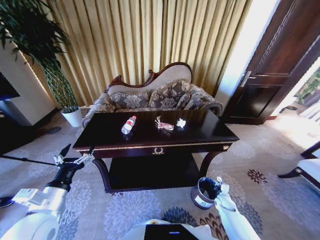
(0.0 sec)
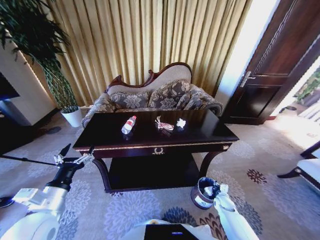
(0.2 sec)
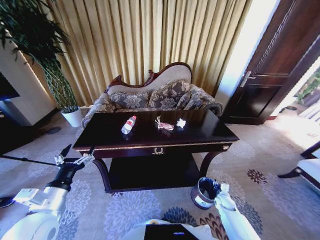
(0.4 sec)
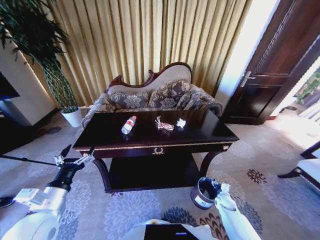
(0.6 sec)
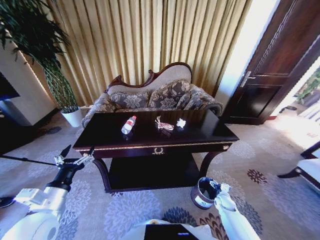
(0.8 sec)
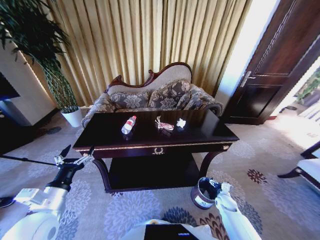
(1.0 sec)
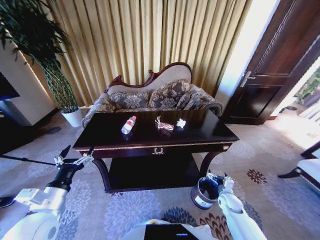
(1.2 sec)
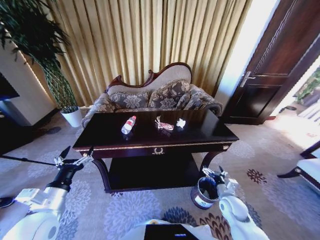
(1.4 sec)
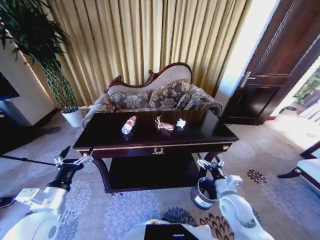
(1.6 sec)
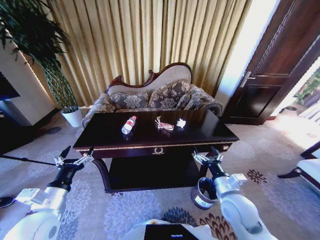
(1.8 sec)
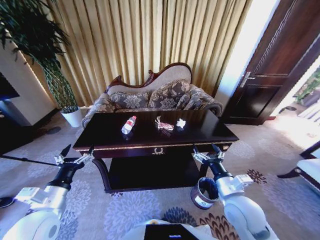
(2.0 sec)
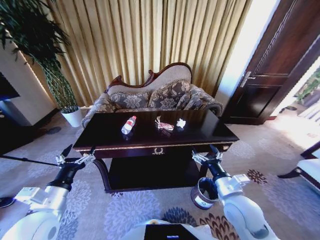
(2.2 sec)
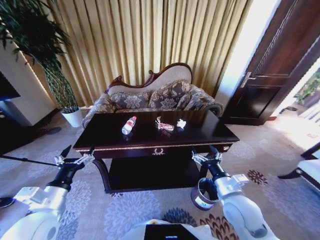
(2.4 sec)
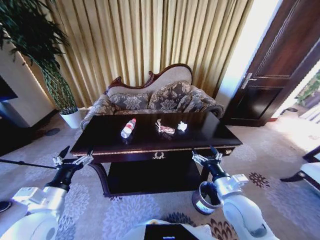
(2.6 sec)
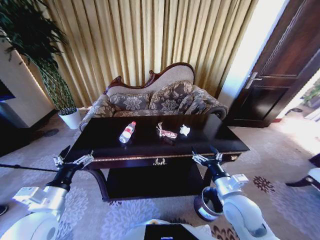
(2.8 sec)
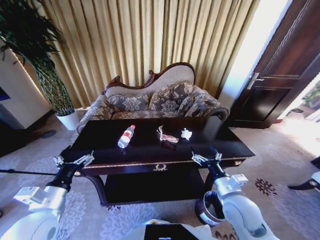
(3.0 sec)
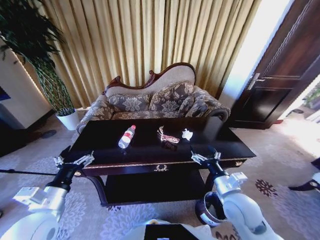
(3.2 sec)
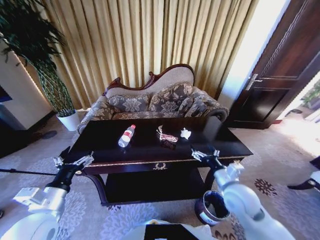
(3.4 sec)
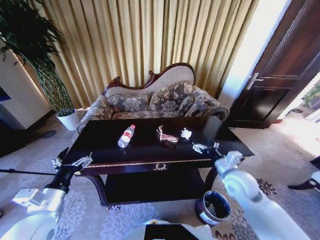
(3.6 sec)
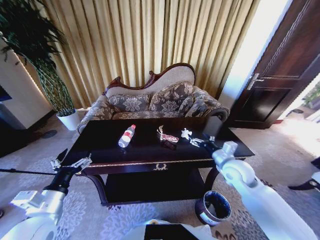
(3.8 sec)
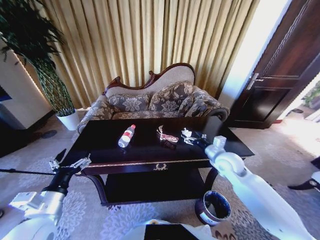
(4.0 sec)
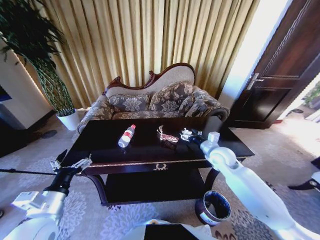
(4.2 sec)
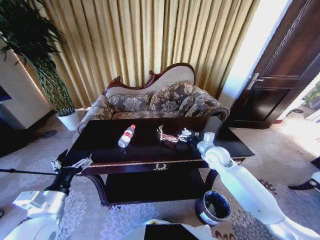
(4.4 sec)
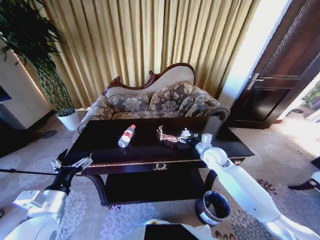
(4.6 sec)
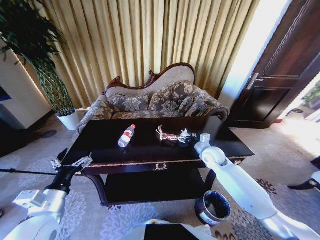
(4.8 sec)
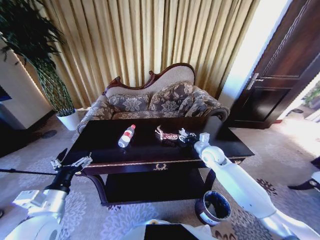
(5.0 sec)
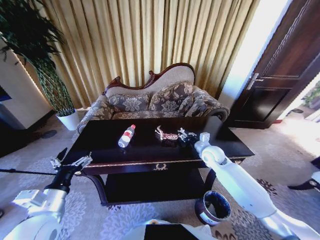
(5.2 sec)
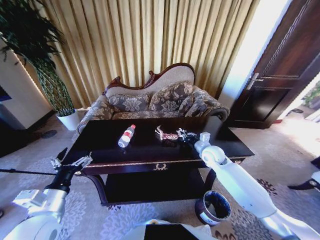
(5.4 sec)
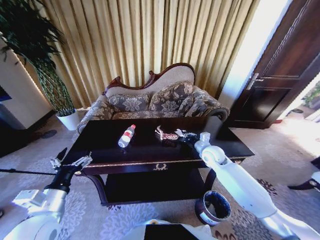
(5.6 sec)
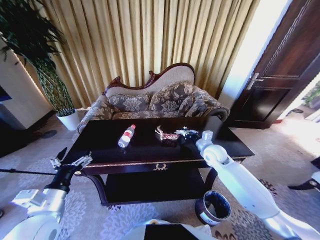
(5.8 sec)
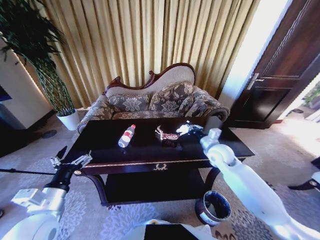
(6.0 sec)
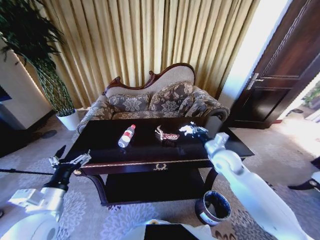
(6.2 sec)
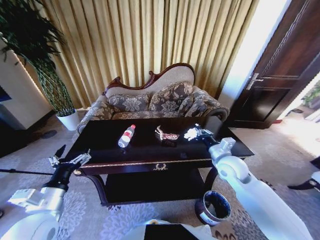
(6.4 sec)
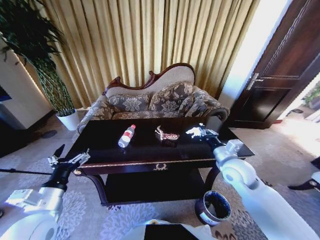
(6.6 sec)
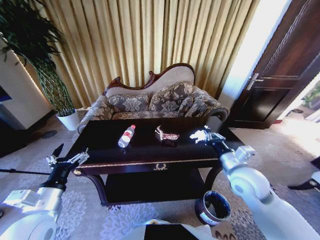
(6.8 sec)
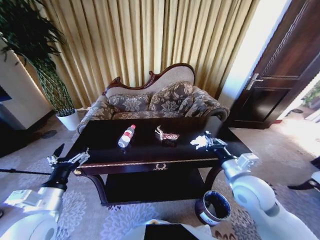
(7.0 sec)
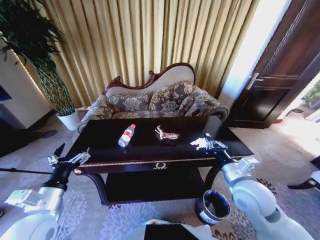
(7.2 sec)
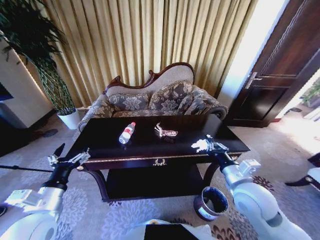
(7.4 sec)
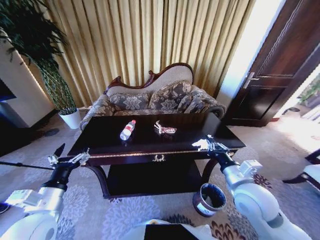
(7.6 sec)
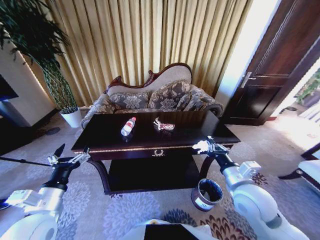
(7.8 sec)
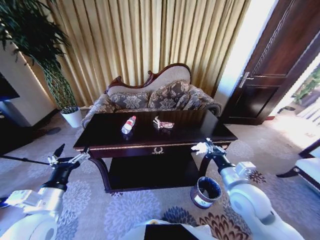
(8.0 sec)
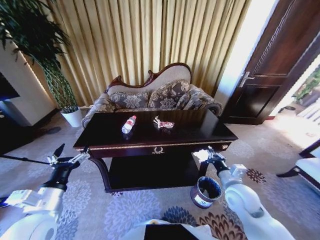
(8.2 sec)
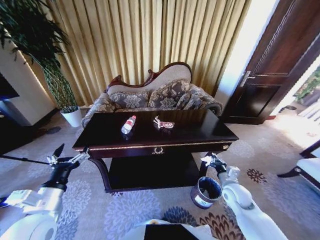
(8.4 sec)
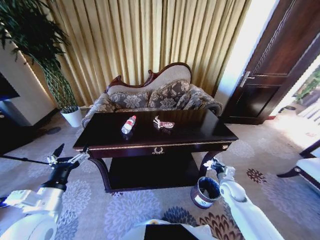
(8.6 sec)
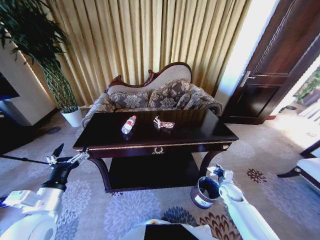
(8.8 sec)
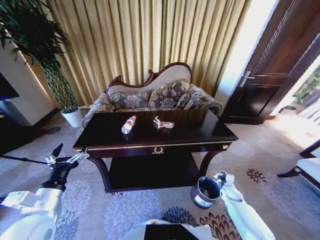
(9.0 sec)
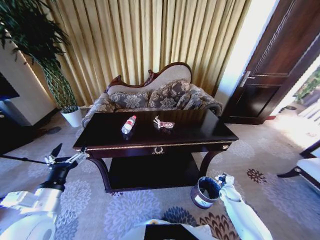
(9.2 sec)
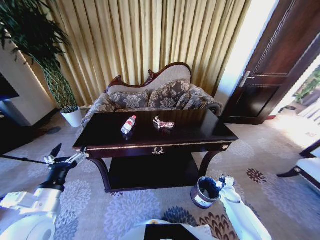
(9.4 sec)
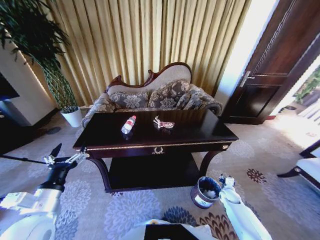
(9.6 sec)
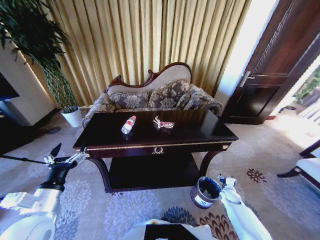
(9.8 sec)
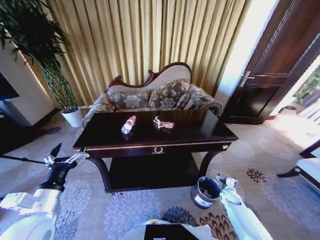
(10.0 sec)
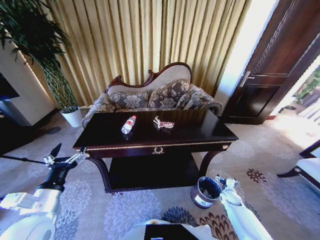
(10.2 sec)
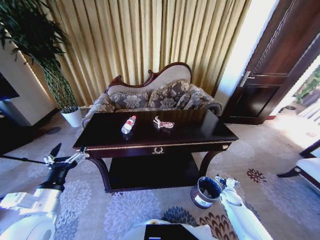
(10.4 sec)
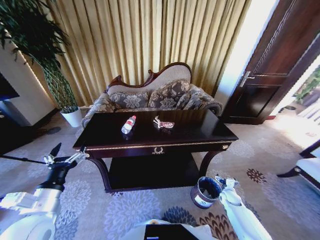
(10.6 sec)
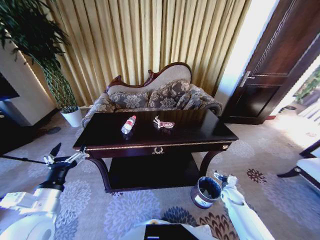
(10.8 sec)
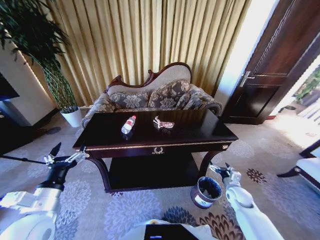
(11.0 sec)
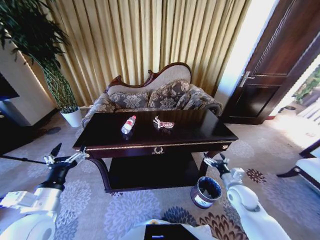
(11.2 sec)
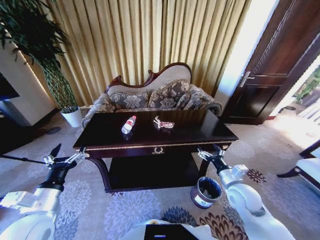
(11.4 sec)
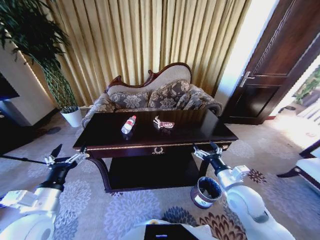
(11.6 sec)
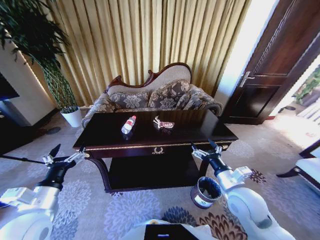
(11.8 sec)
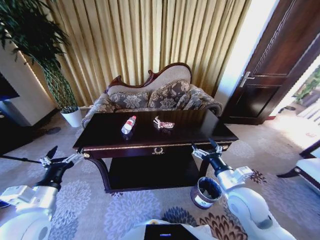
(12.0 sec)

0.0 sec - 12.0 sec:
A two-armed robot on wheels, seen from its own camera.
Task of the whole recording: Move to the front of the table and place the trash on the table into the trash bin.
0.0 sec - 1.6 sec: The right gripper is displaced upward and to the left by some 25 cm, and opens up.
1.6 sec - 3.0 sec: The right gripper travels upward by roughly 5 cm.
3.0 sec - 4.4 sec: The right gripper is displaced forward by some 20 cm.
4.4 sec - 6.0 sec: The right gripper closes.
6.0 sec - 7.6 sec: The right gripper goes roughly 20 cm backward.
7.6 sec - 9.0 sec: The right gripper heads downward and to the right, covering roughly 35 cm.
9.0 sec - 10.4 sec: The right gripper opens.
10.4 sec - 12.0 sec: The right gripper is displaced upward and to the left by approximately 35 cm.

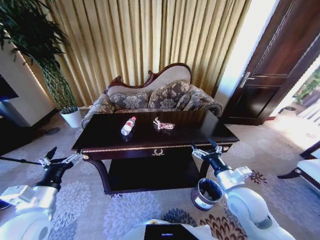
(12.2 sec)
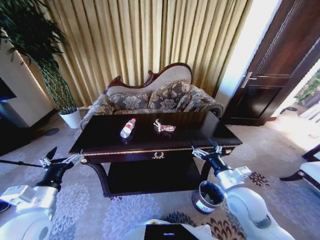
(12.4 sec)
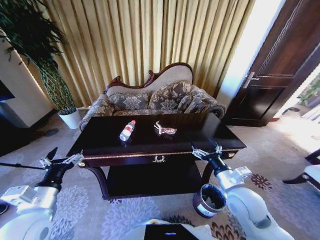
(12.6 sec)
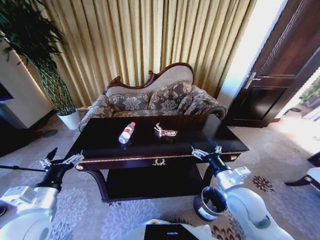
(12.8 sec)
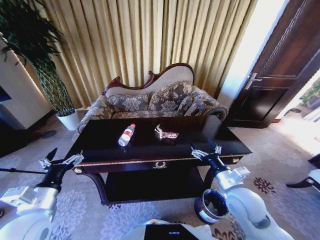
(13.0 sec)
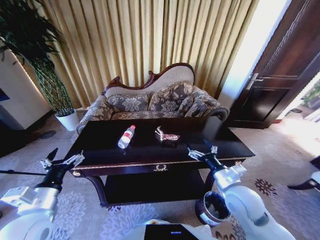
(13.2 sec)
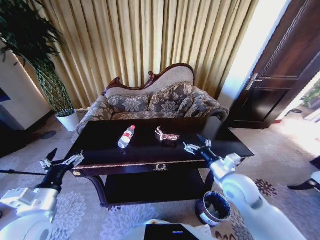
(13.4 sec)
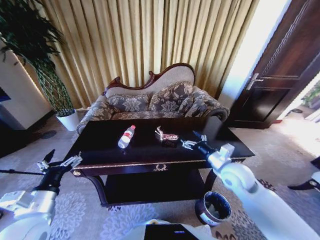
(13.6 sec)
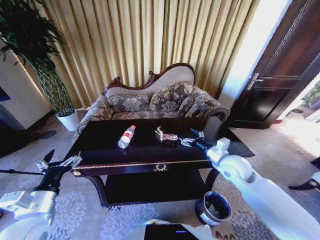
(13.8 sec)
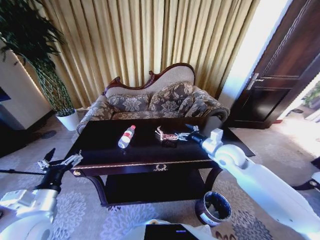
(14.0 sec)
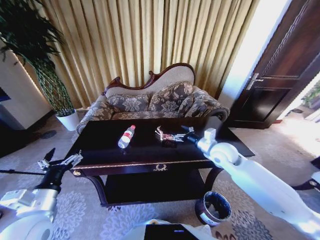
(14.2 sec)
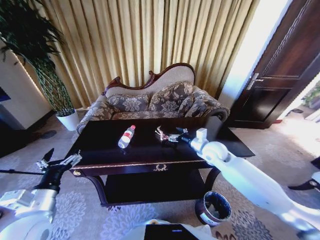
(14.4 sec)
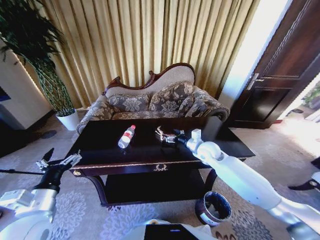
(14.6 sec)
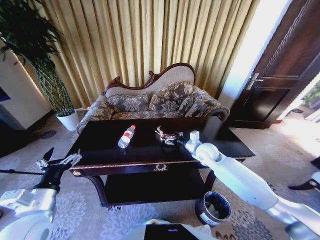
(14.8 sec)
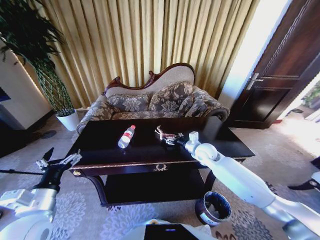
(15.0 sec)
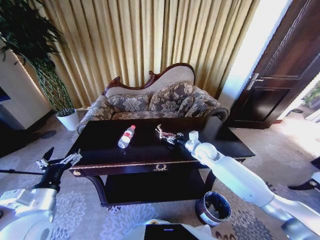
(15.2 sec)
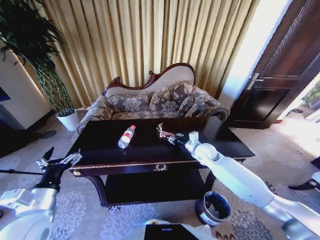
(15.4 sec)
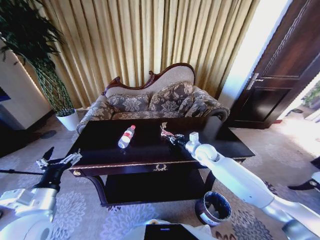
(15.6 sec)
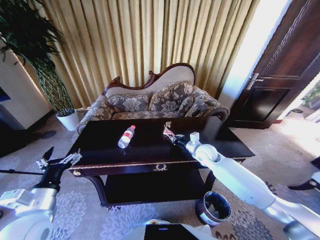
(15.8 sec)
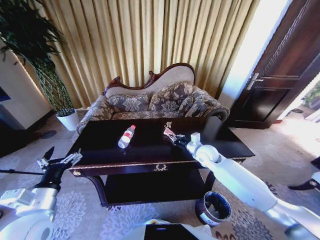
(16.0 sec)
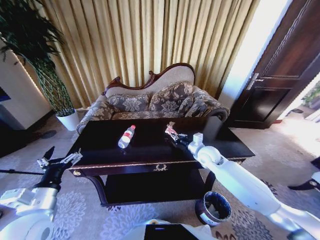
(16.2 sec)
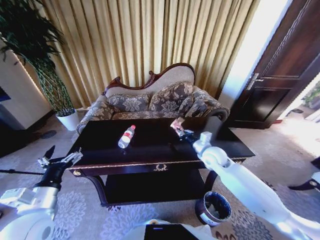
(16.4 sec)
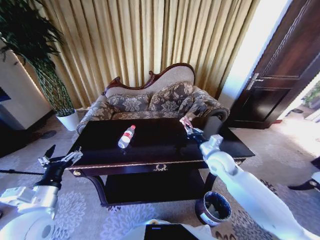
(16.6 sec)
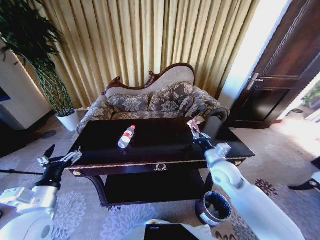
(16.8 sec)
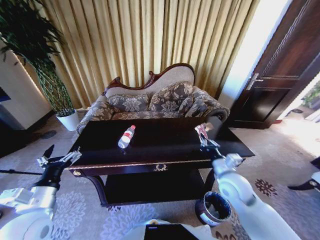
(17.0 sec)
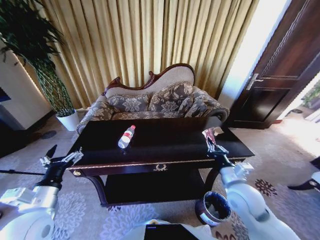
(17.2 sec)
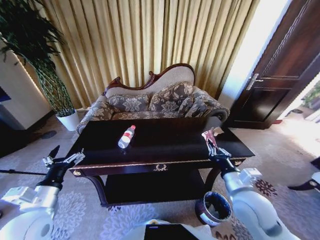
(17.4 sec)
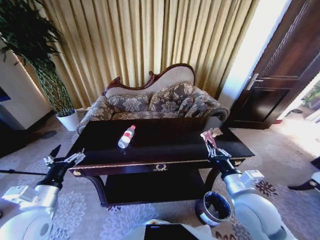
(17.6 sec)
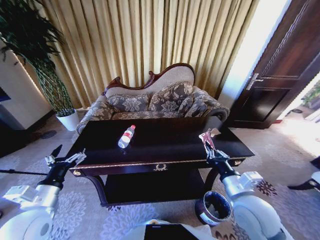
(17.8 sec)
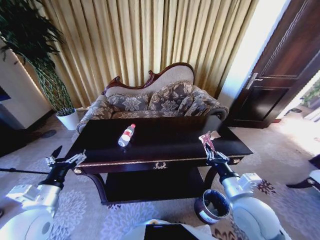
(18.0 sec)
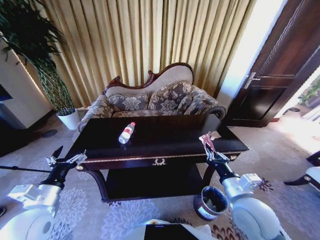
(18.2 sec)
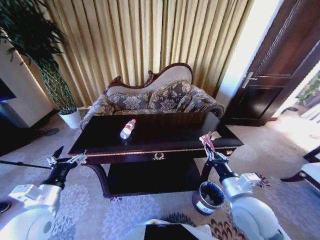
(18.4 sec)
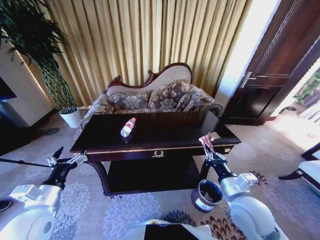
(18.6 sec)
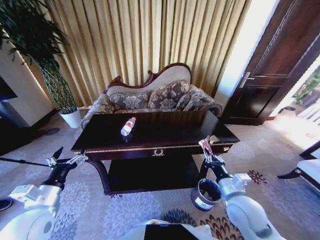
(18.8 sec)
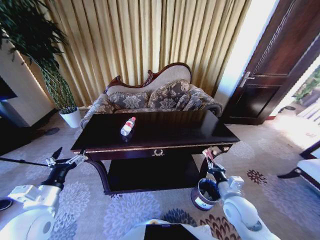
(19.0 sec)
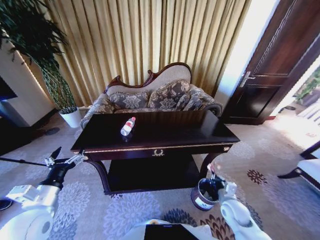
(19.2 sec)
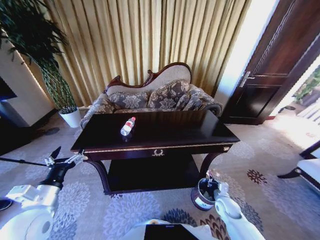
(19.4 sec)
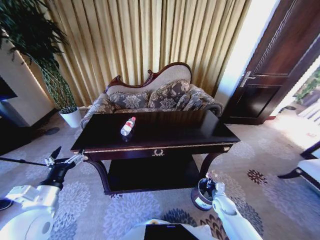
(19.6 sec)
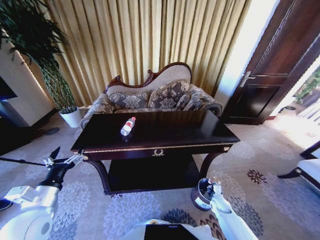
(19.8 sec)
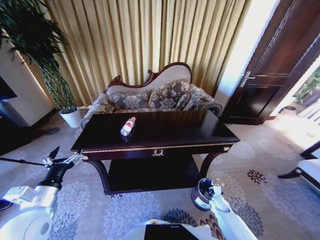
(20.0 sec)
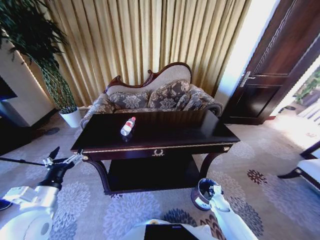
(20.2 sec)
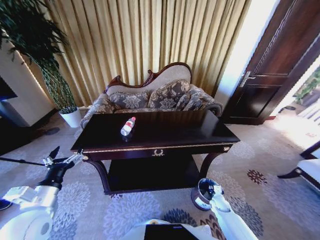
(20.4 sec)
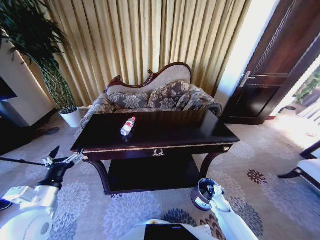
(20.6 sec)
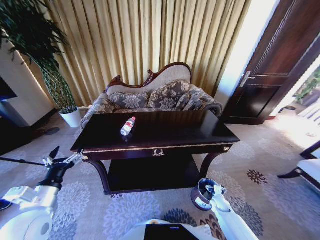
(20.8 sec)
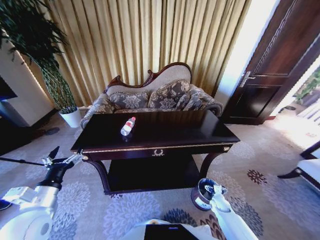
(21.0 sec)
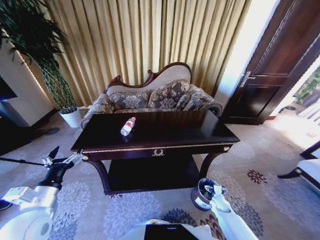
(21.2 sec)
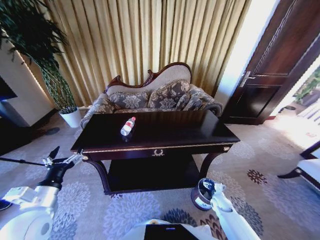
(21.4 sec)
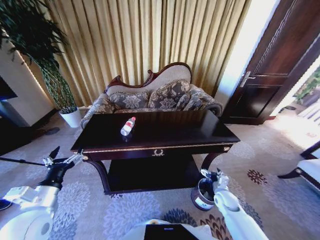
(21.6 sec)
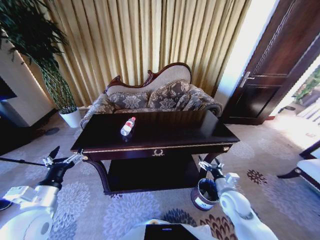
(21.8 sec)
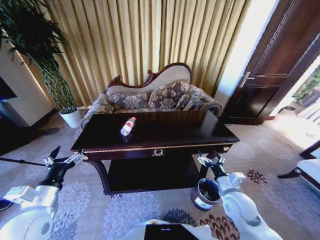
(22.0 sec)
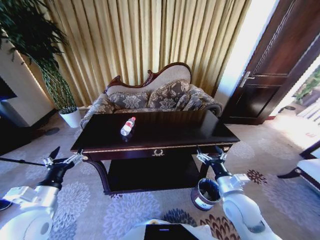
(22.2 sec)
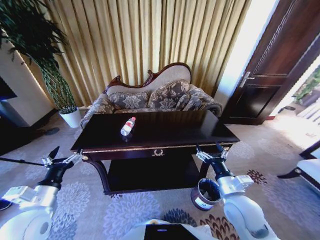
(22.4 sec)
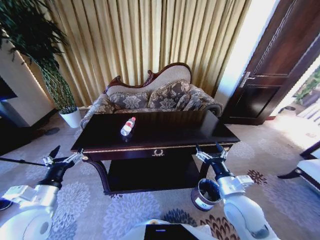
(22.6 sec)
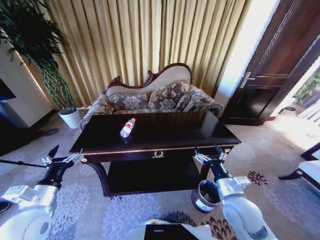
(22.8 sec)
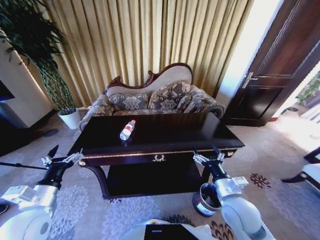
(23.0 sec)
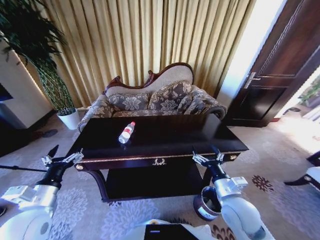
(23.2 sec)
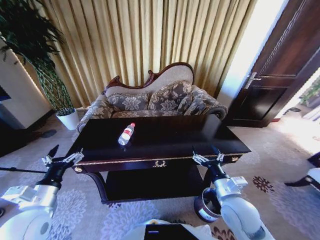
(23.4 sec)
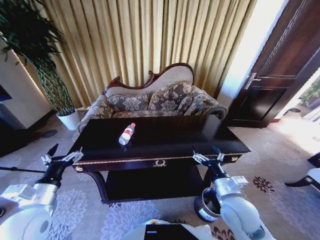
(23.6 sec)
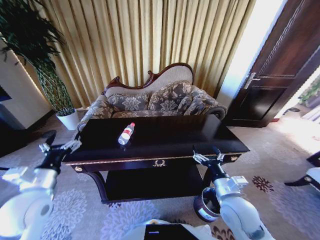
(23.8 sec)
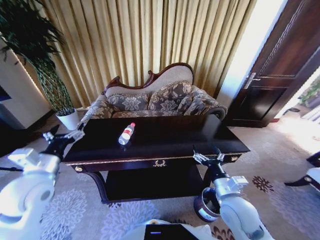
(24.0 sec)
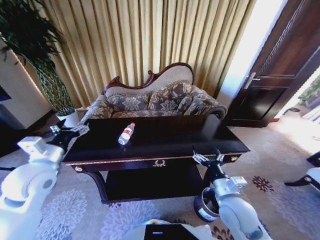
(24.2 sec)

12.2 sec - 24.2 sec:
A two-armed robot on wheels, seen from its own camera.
Task of the whole recording: Move to the front of the table and place the trash on the table into the trash bin.
12.2 sec - 13.8 sec: The right gripper travels forward by roughly 10 cm.
13.8 sec - 15.2 sec: The right gripper moves forward, downward and to the left, some 15 cm.
15.2 sec - 16.6 sec: The right gripper travels backward by some 10 cm, and closes.
16.6 sec - 18.2 sec: The right gripper travels backward by approximately 20 cm.
18.2 sec - 19.8 sec: The right gripper heads downward, covering about 35 cm.
21.2 sec - 22.6 sec: The right gripper is displaced upward by about 30 cm.
22.6 sec - 24.2 sec: The left gripper moves forward and upward, about 15 cm.
